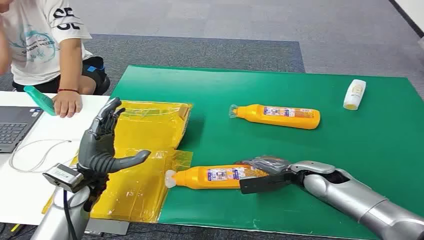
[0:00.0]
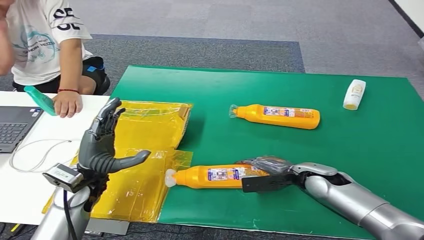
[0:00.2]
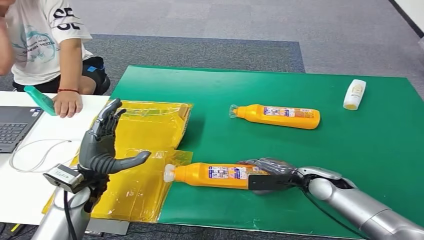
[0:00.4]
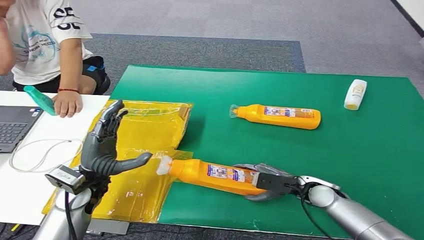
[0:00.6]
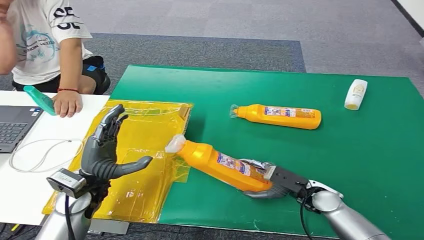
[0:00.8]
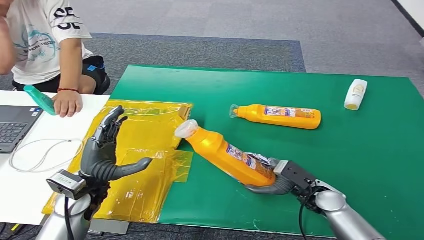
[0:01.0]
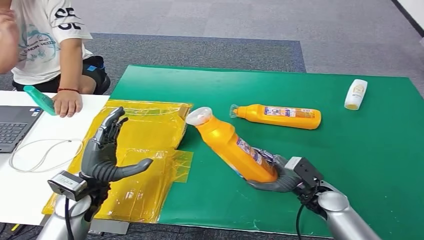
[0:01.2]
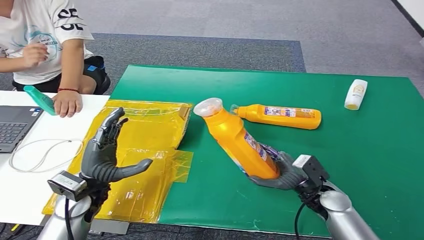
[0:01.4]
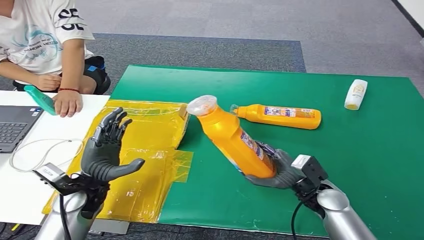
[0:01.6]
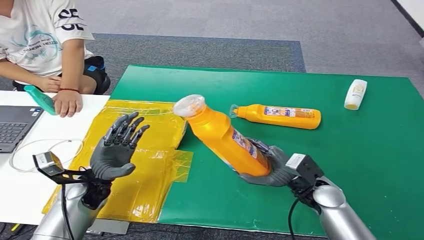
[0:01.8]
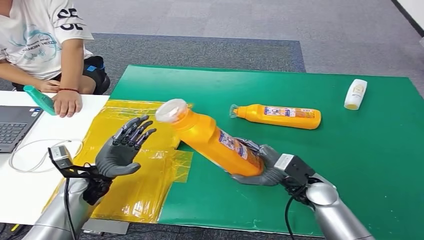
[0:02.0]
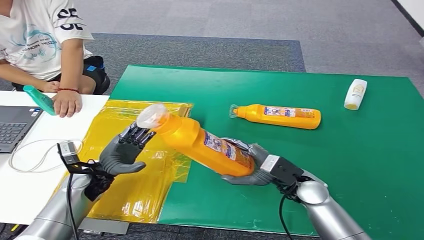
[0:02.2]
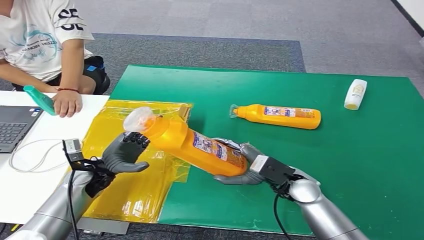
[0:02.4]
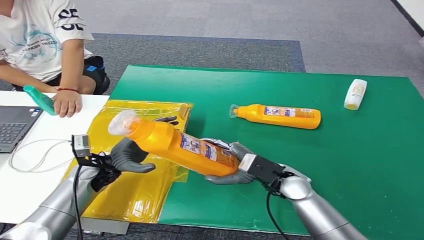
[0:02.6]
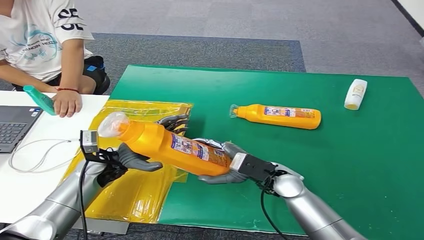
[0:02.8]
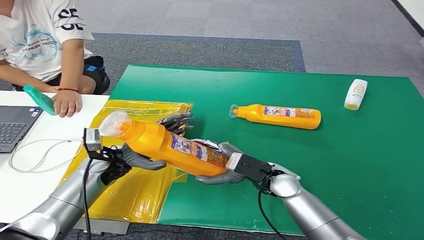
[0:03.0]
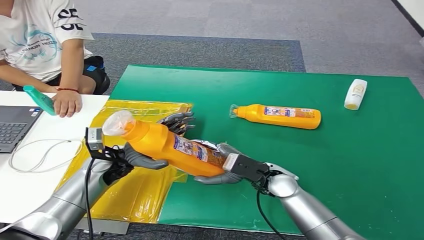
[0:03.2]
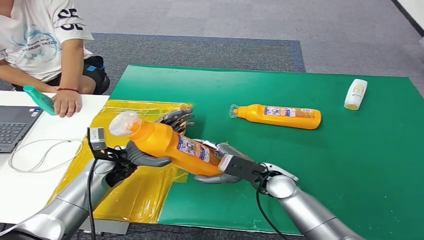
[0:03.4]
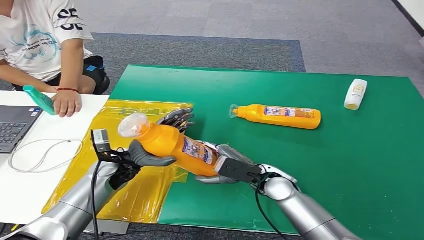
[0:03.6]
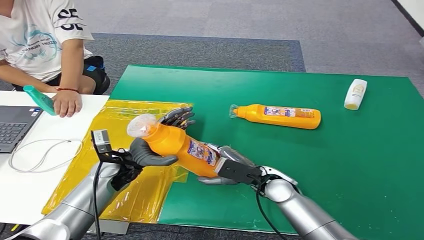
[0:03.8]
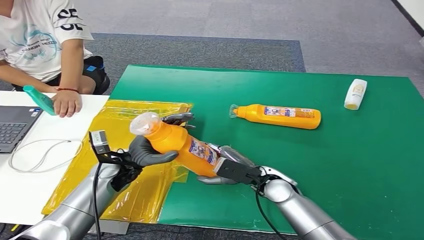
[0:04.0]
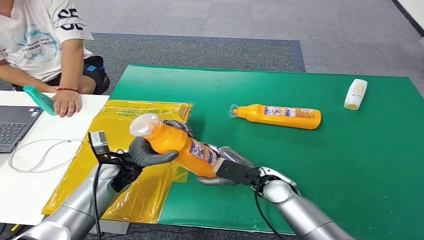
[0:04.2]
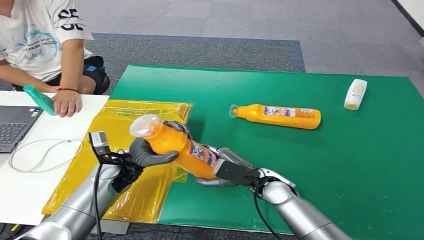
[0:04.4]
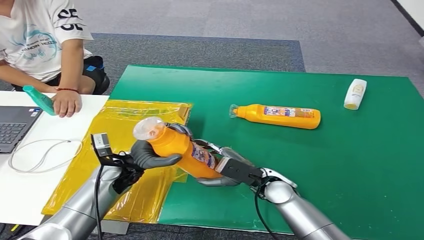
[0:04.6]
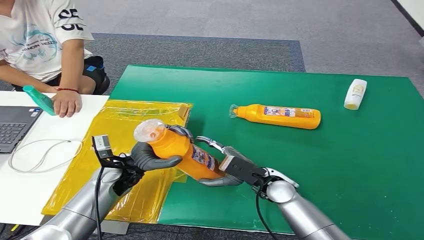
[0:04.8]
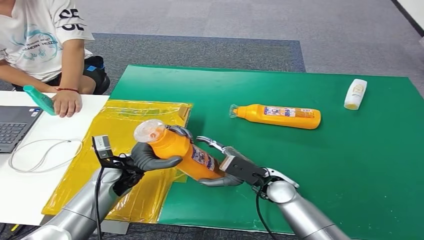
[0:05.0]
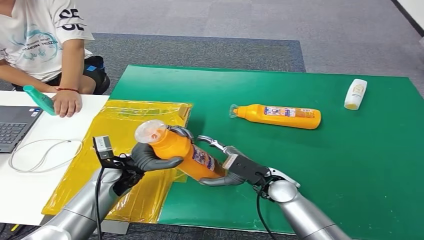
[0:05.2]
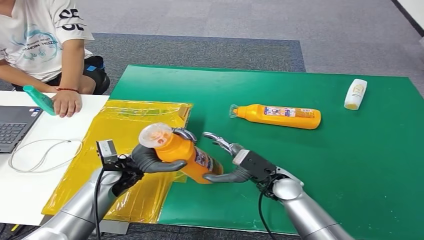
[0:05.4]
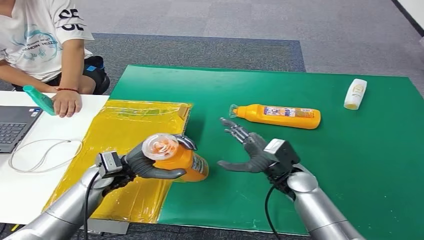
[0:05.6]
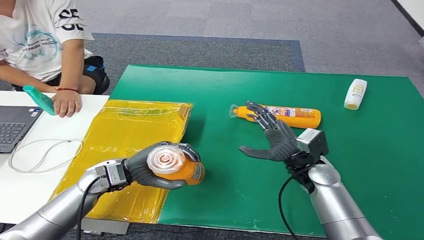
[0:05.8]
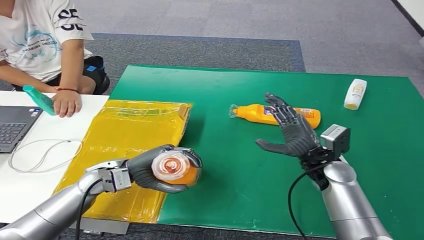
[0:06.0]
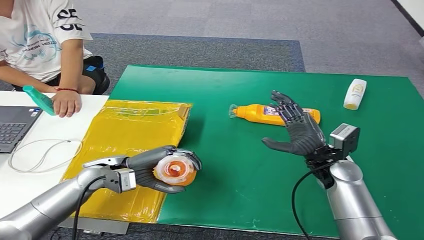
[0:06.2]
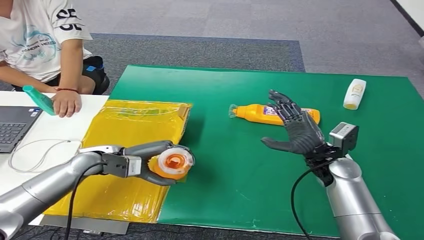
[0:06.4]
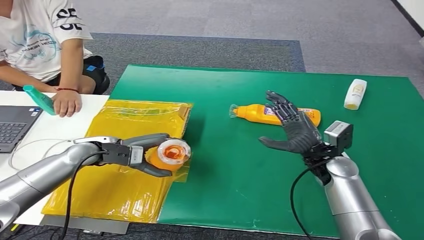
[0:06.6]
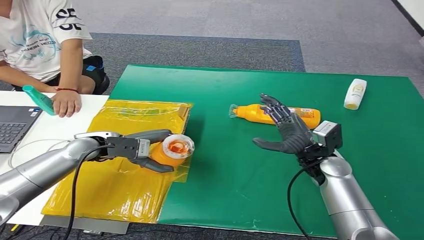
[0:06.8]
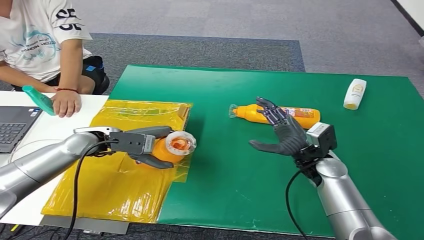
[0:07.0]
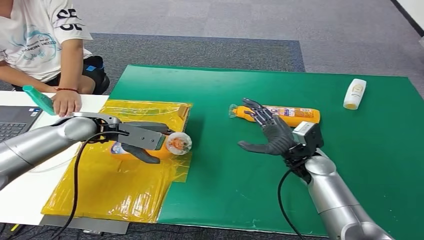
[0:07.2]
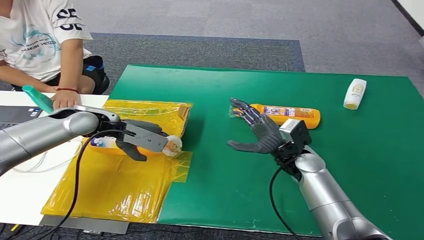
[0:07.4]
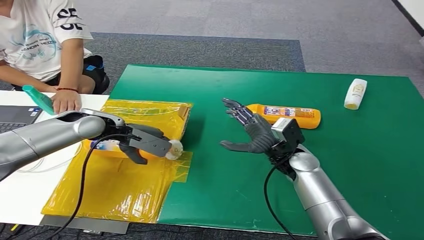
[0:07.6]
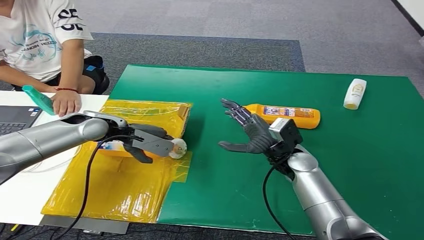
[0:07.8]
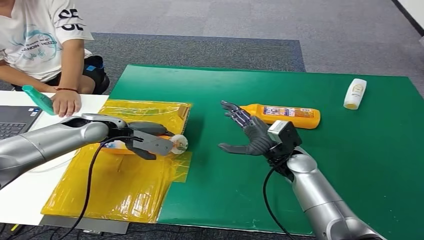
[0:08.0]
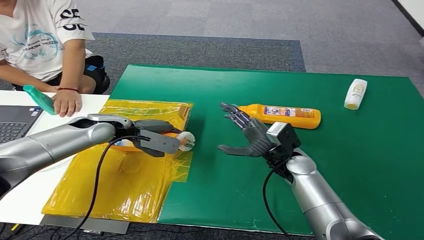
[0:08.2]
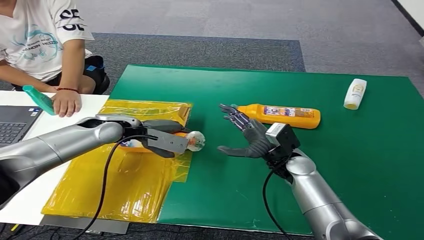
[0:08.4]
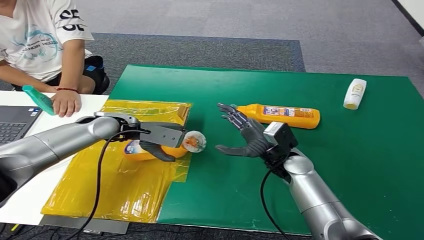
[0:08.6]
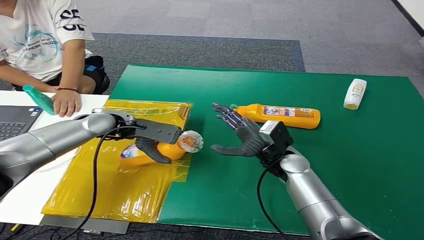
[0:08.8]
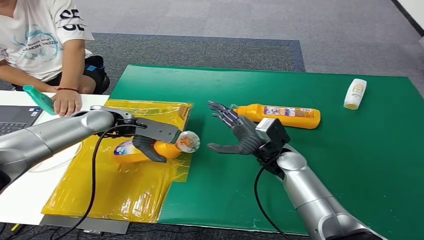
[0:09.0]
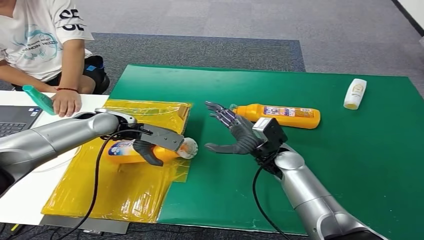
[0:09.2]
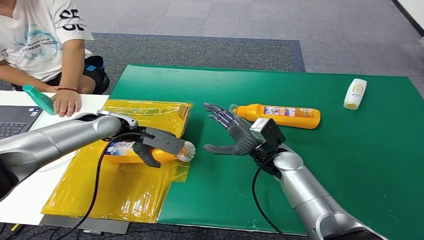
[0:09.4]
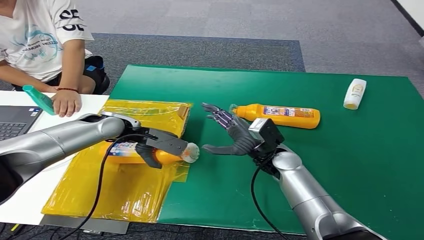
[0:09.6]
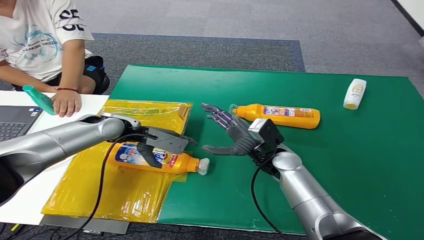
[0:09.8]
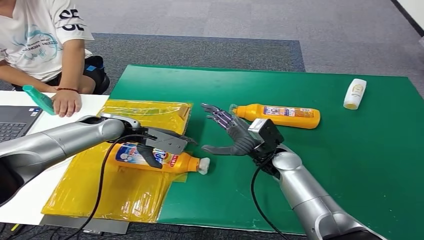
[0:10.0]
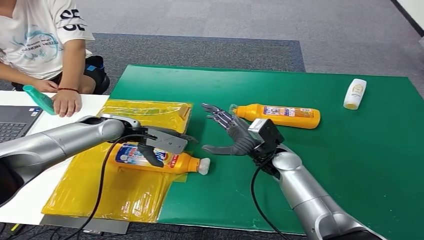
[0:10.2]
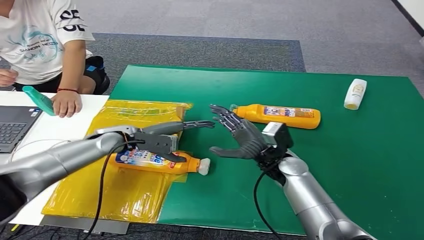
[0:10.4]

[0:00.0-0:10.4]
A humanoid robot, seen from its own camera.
Step, 0:00.0 to 0:02.2: Pick up the bottle from the table.
Step, 0:02.4 to 0:10.4: Turn the bottle to the front side.
0:03.0 to 0:04.4: The hands stay close to where they were, moving slightly.
0:07.4 to 0:09.0: The hands stay close to where they were, moving slightly.
0:09.0 to 0:10.4: The left hand heads downward, covering some 5 cm.
